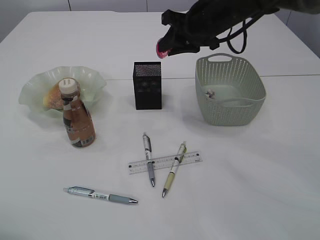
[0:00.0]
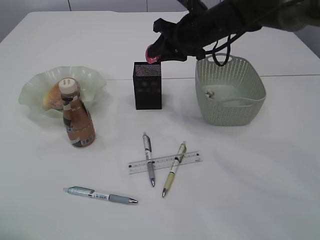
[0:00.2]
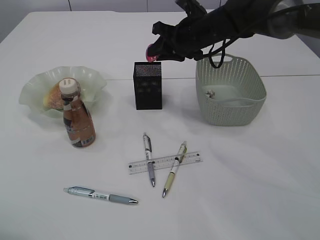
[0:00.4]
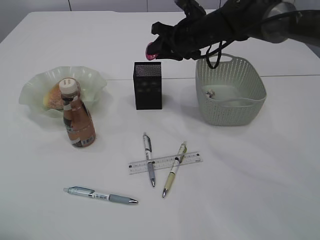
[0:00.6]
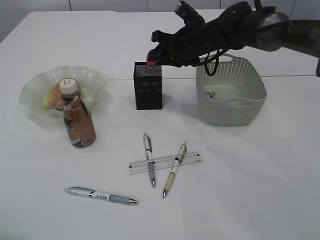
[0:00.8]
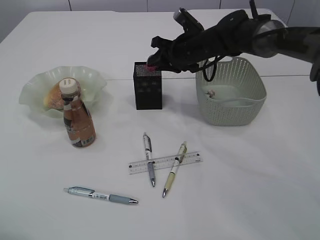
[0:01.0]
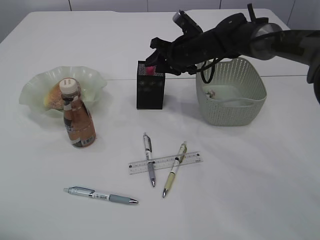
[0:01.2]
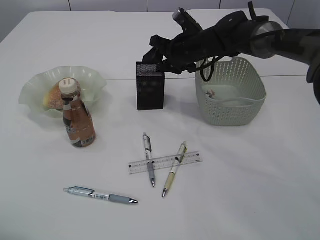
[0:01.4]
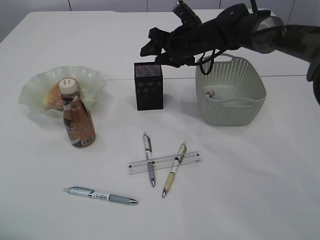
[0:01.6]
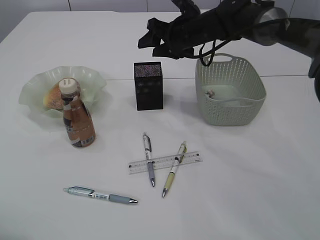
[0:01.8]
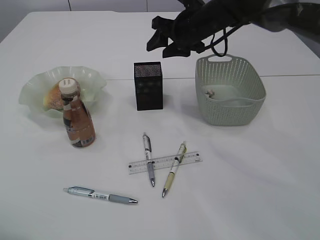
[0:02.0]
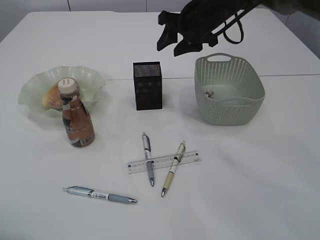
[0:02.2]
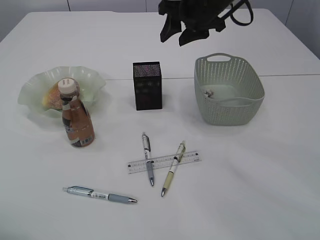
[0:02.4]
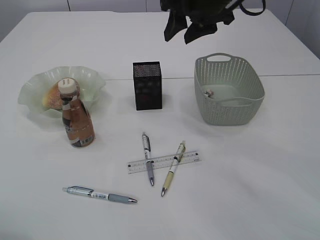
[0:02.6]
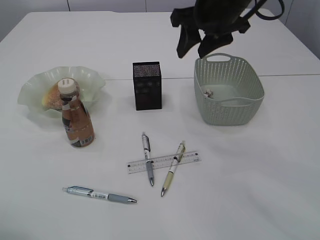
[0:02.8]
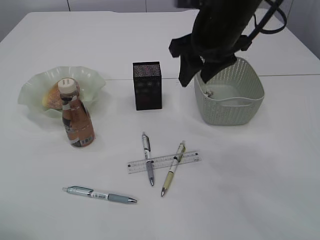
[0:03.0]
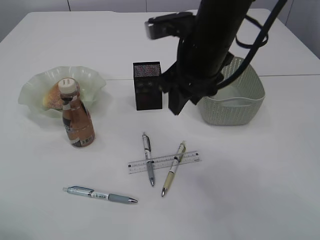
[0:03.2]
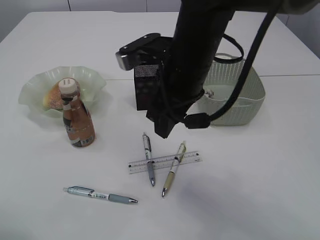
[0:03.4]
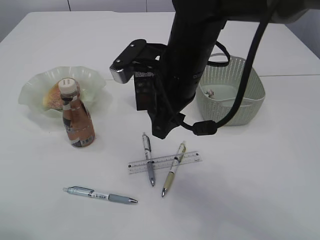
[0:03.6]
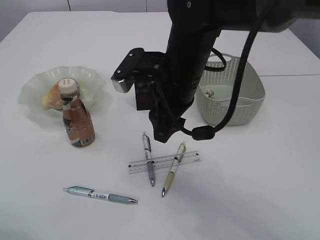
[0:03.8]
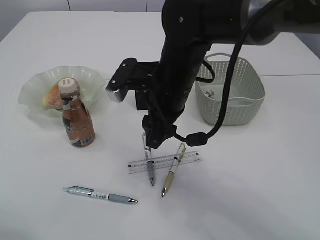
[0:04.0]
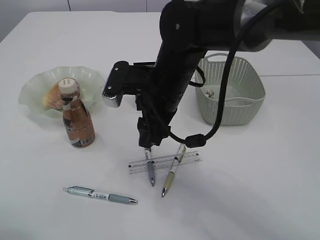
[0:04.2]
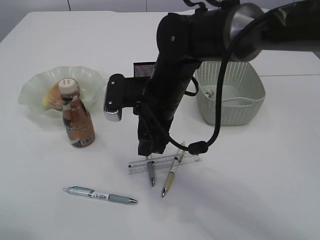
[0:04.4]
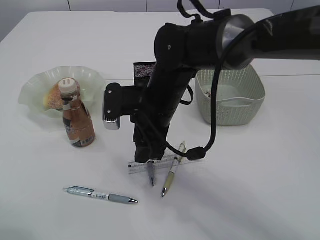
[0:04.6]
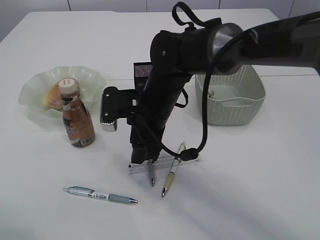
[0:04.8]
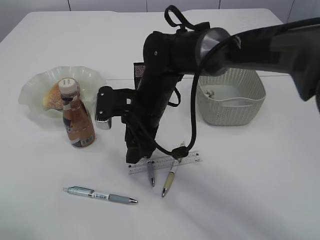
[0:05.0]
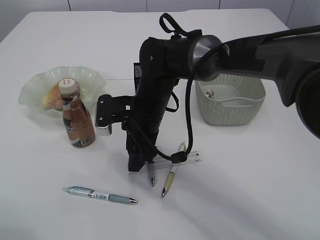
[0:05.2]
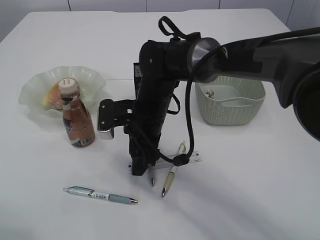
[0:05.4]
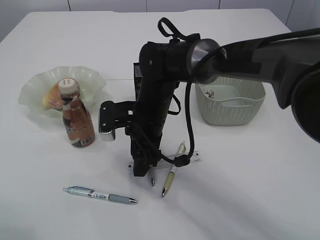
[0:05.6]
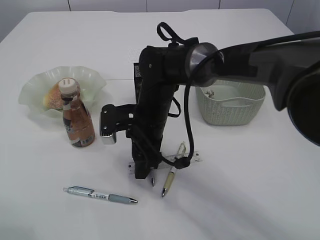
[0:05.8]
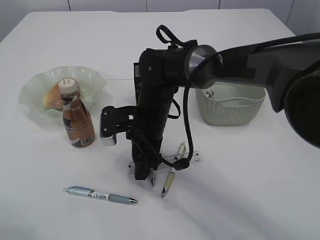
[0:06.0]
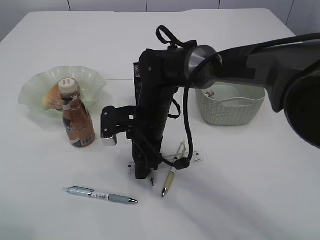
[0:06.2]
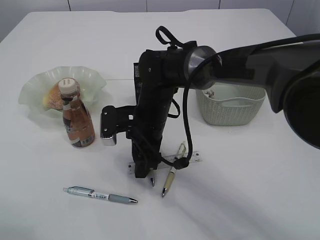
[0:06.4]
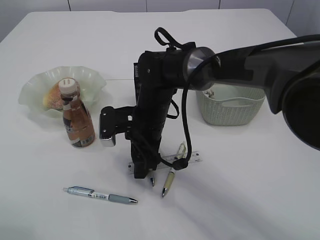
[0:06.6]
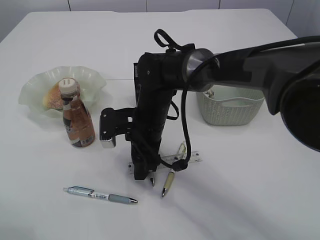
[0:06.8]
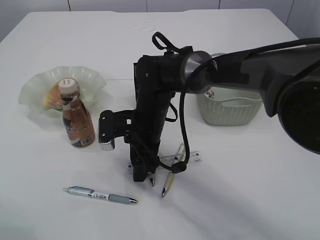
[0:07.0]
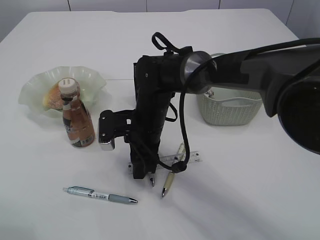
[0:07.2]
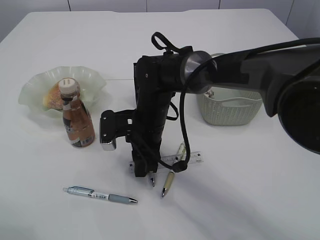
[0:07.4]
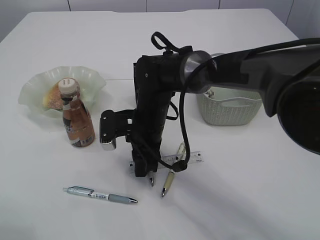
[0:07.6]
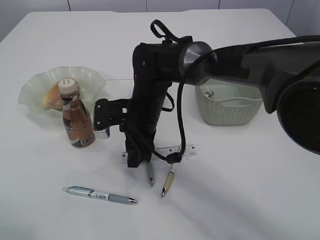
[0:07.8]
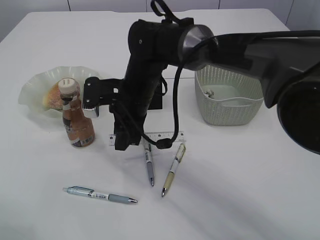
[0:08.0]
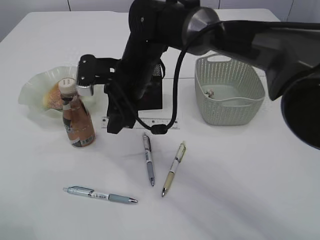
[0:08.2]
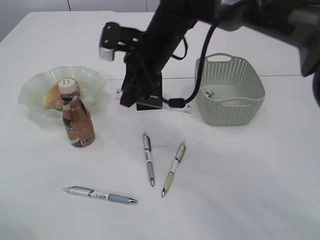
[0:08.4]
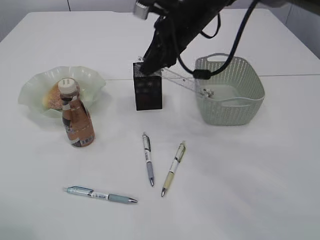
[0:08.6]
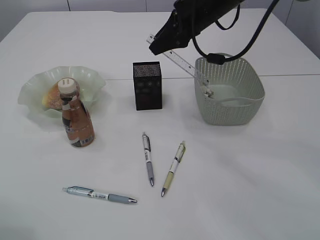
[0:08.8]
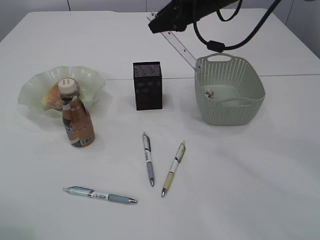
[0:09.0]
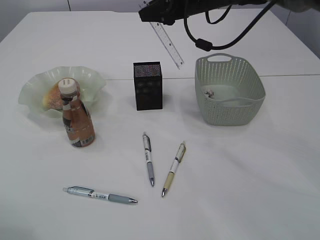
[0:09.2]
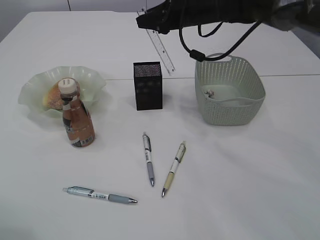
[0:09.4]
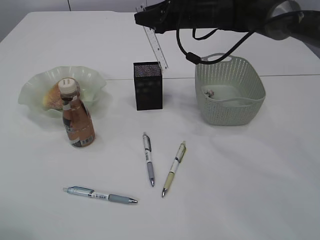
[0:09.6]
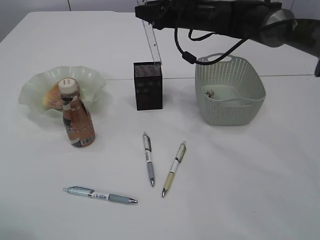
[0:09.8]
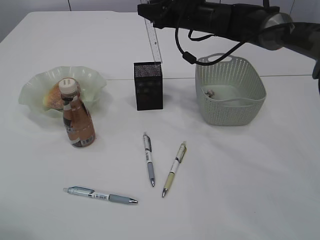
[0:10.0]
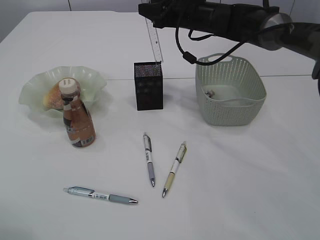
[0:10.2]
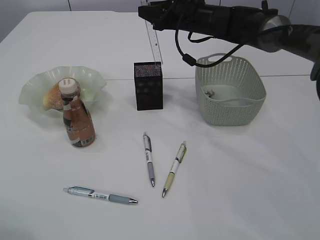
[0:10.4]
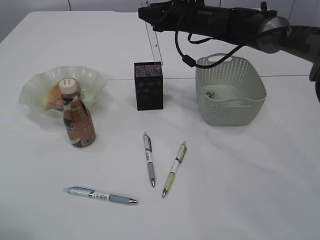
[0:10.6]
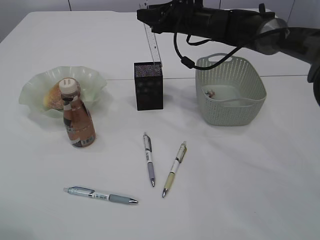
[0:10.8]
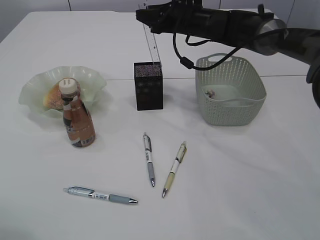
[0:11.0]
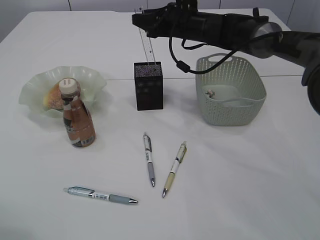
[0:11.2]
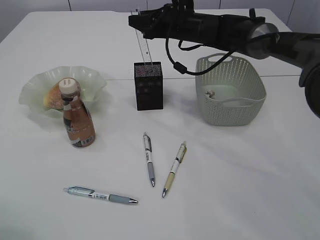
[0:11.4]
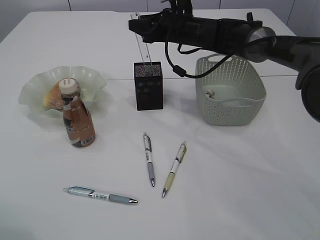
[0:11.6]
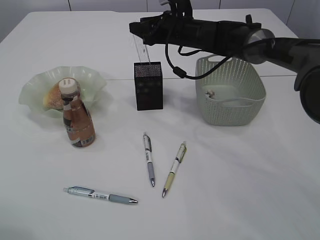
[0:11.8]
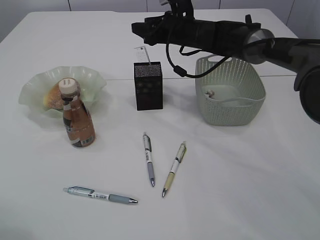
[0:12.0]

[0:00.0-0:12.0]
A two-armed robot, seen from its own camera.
Step, 0:00.0 to 0:01.6: place the red pencil sharpener into the pen holder.
Step, 0:01.8 to 0:08.0: pick up the ruler.
0:00.0 to 0:01.6: The right gripper travels downward and forward by approximately 10 cm, and opens.
0:01.6 to 0:03.0: The right gripper shifts approximately 20 cm backward and upward.
0:03.0 to 0:04.4: The right gripper travels downward and to the left by roughly 15 cm.
0:04.4 to 0:06.0: The right gripper shifts roughly 5 cm downward.
0:06.0 to 0:07.6: Both grippers stay put.
0:07.6 to 0:09.0: The right gripper goes roughly 25 cm upward, to the right and forward.
0:09.0 to 0:10.4: The right gripper shifts about 10 cm downward and forward.
0:10.4 to 0:12.0: The grippers stay close to where they were, moving slightly.

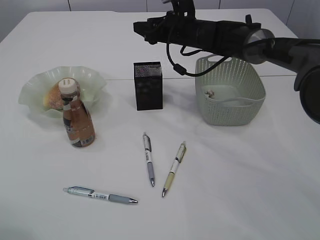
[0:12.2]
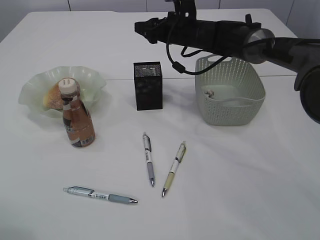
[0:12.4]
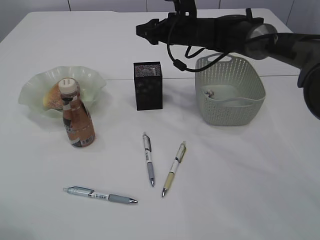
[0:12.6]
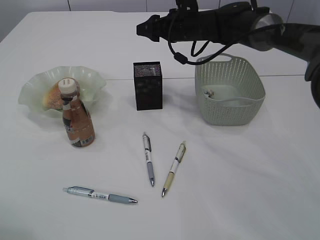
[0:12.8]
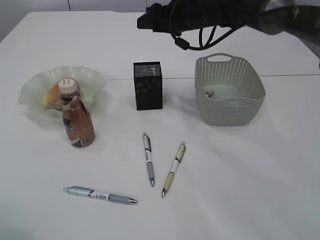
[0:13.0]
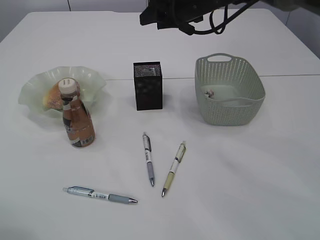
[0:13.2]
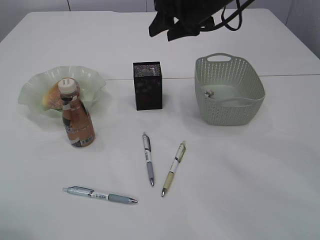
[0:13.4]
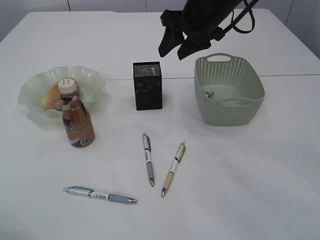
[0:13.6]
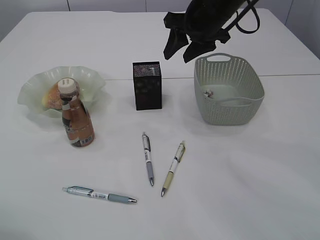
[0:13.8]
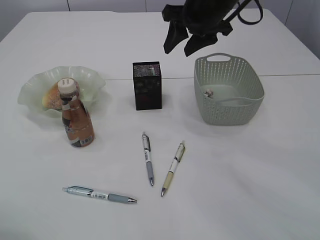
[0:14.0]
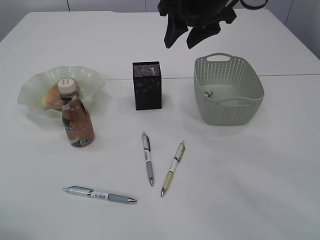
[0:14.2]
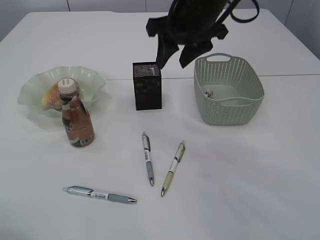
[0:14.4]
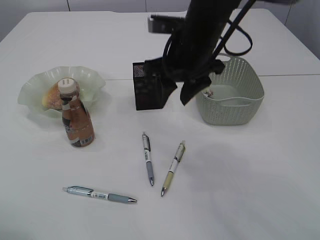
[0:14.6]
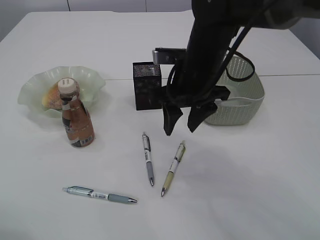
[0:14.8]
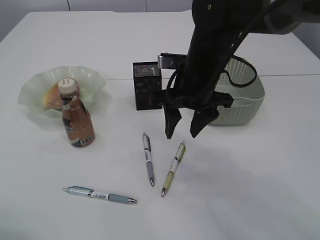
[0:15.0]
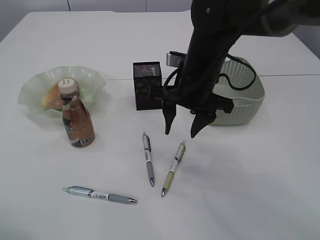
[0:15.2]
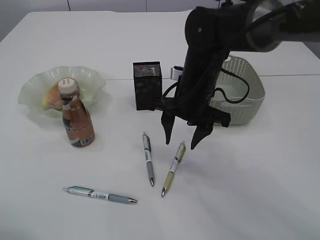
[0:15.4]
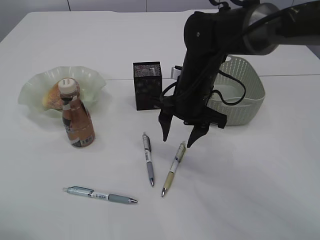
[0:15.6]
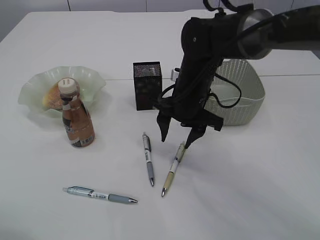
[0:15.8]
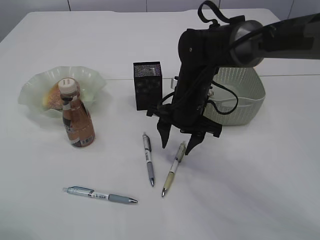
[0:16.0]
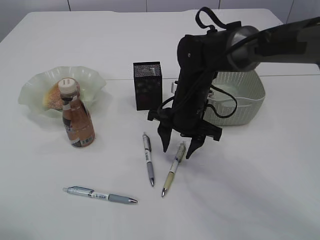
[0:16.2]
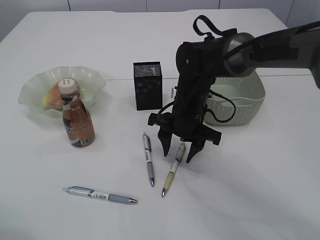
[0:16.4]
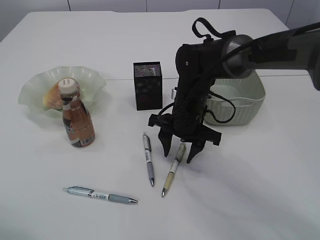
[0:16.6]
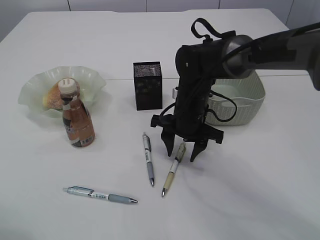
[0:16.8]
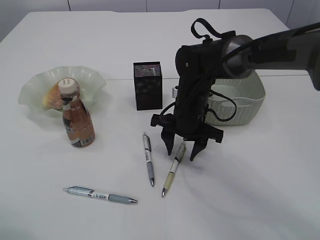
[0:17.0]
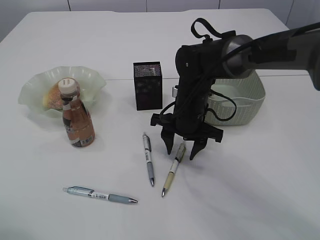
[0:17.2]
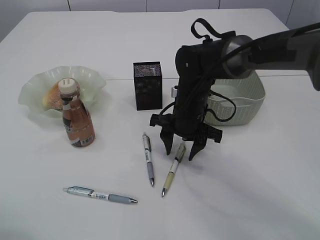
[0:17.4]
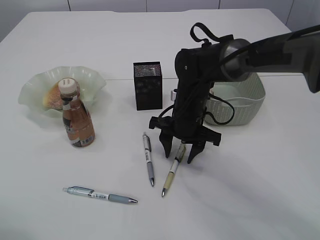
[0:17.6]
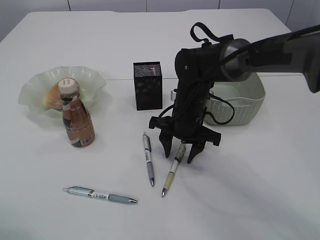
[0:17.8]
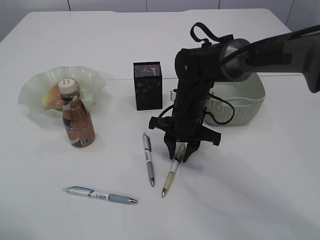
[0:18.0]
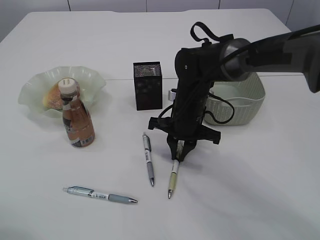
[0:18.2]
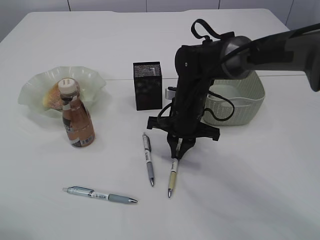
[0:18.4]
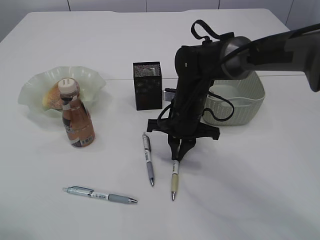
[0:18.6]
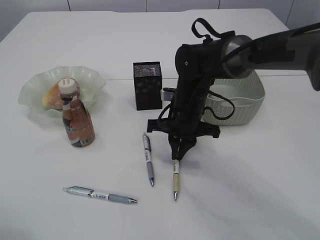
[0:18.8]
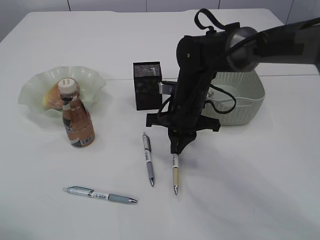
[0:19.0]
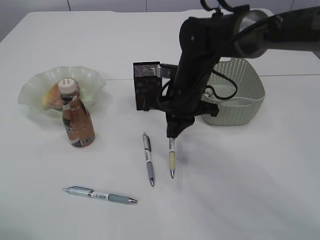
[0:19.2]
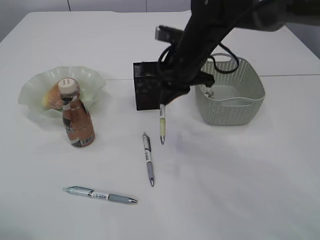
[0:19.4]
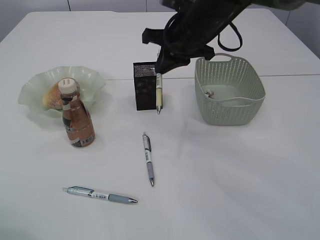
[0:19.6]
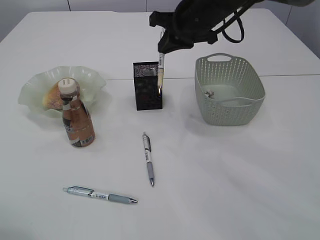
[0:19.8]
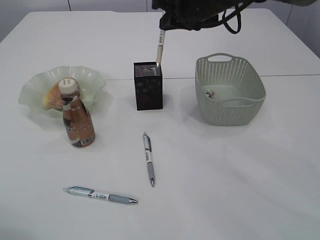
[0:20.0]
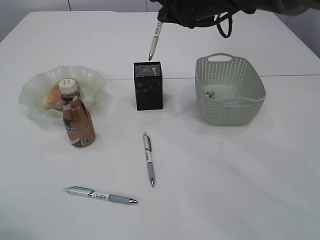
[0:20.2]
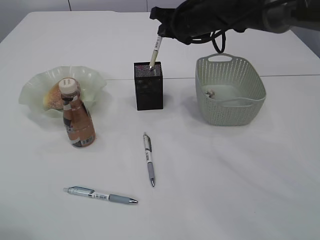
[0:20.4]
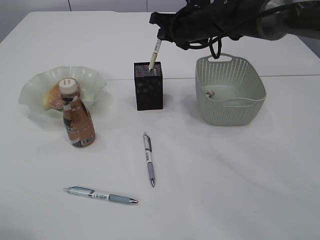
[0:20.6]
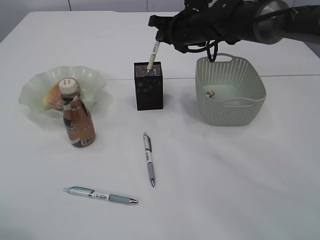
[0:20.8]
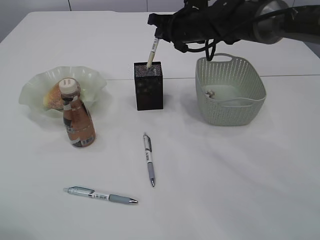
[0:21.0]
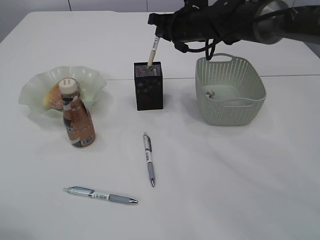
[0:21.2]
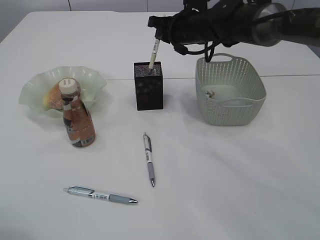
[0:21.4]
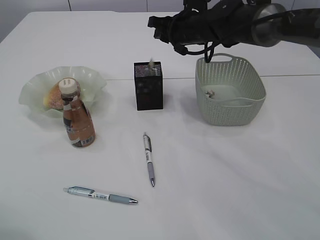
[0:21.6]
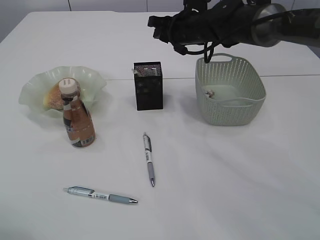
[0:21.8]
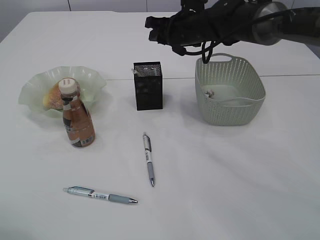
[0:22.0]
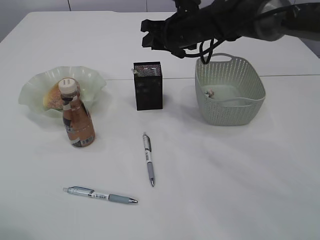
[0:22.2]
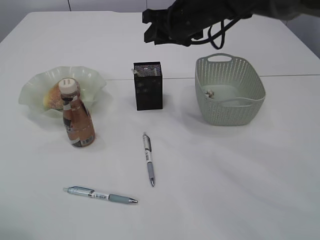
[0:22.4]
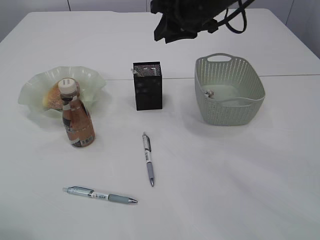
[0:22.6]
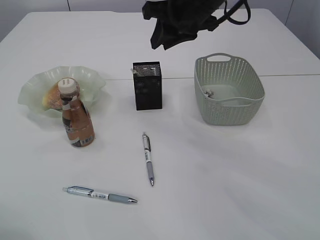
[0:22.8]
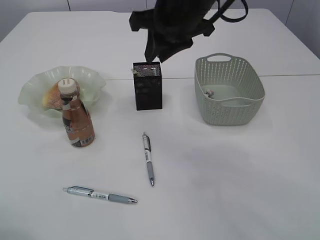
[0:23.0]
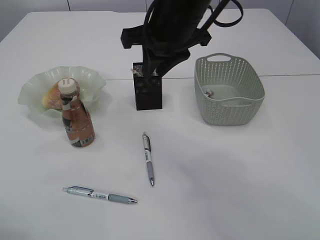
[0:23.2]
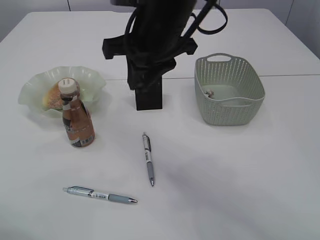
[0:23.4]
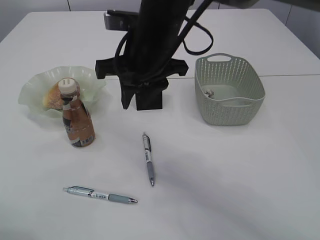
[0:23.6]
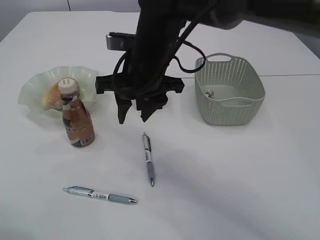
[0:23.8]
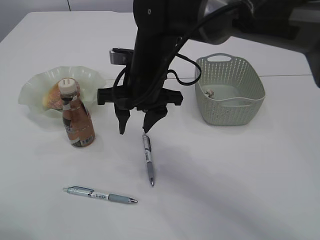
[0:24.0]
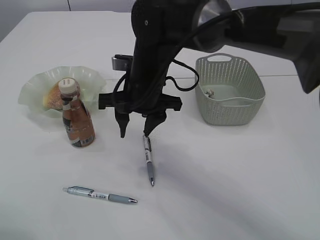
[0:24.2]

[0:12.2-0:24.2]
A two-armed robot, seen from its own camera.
Step, 0:12.6 to 0:19.4: Pick up the pen with right arm.
Step, 0:19.6 to 0:22.4: Place the pen into the pen holder.
0:12.2 to 0:13.8: The right gripper goes about 10 cm backward and upward.
0:13.8 to 0:15.2: The right gripper travels backward and downward by some 10 cm.
0:15.2 to 0:16.6: The right gripper travels downward by about 10 cm.
0:16.6 to 0:18.2: The right gripper closes up.
0:18.2 to 0:19.8: The right gripper goes about 15 cm upward.
0:19.8 to 0:21.2: The right gripper shifts roughly 5 cm forward.
0:21.2 to 0:22.6: The right gripper shifts roughly 10 cm upward and backward.
0:22.6 to 0:24.2: The right gripper moves to the left, downward and backward, roughly 15 cm, and opens up.
